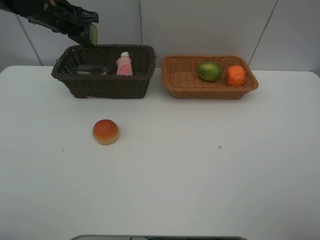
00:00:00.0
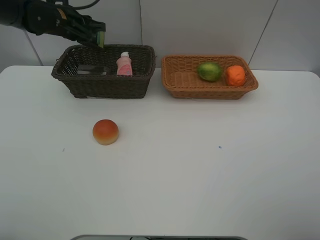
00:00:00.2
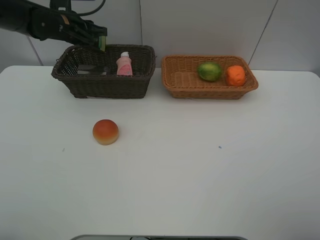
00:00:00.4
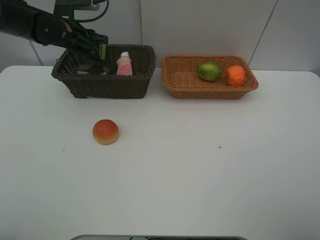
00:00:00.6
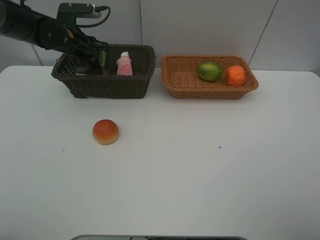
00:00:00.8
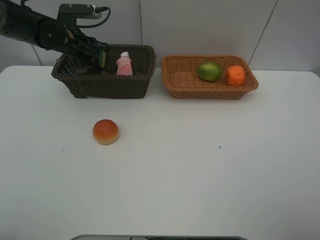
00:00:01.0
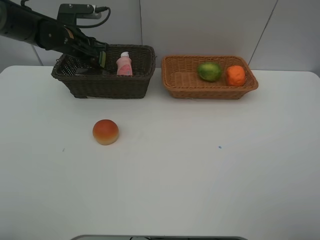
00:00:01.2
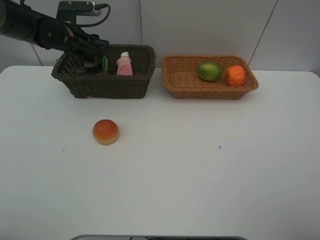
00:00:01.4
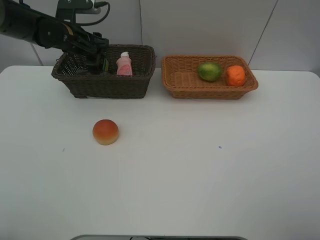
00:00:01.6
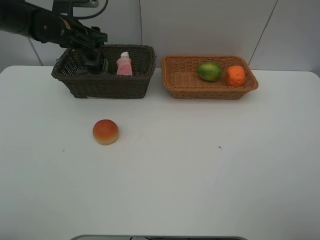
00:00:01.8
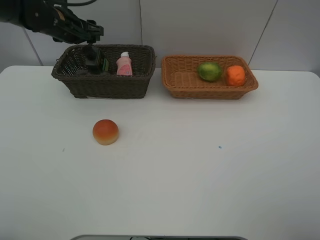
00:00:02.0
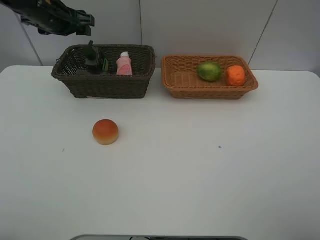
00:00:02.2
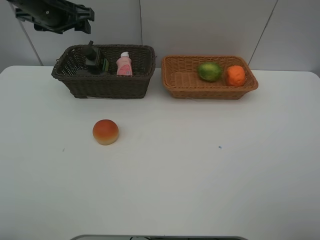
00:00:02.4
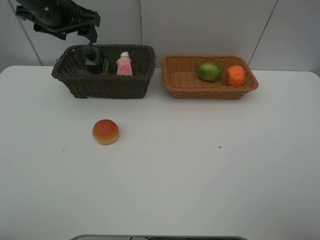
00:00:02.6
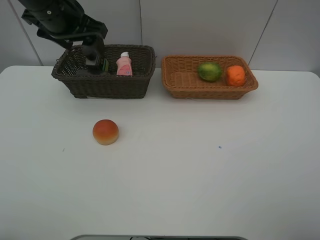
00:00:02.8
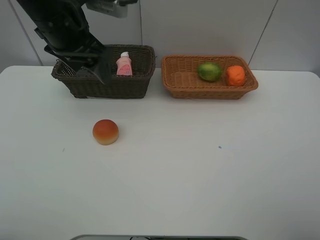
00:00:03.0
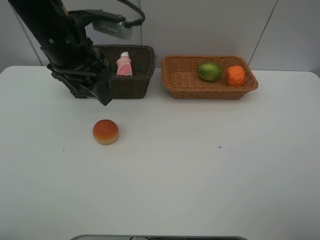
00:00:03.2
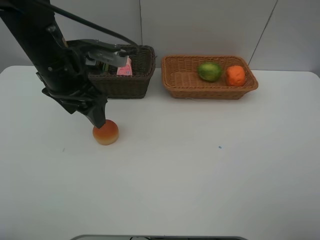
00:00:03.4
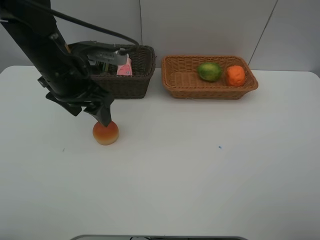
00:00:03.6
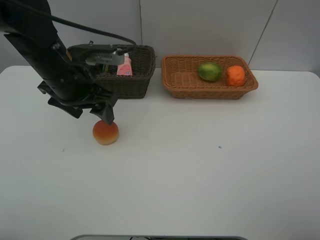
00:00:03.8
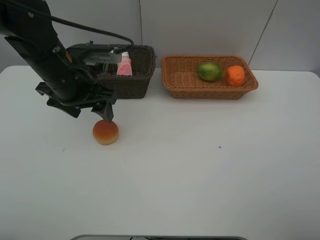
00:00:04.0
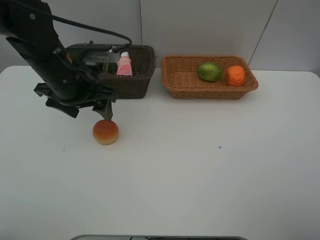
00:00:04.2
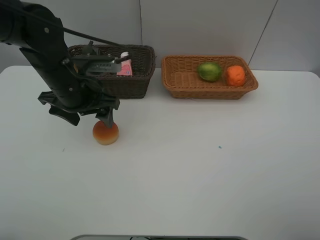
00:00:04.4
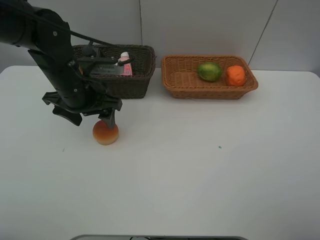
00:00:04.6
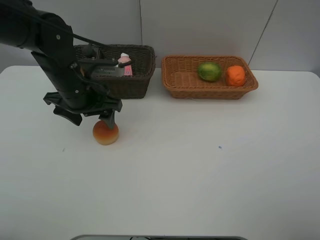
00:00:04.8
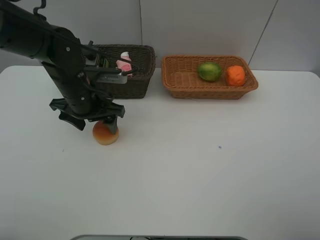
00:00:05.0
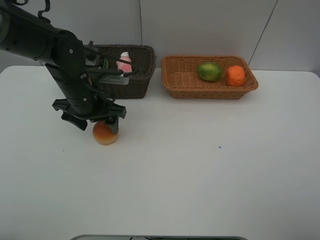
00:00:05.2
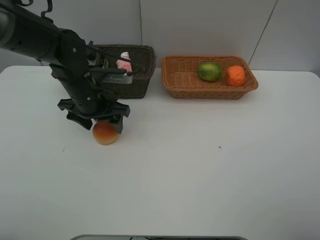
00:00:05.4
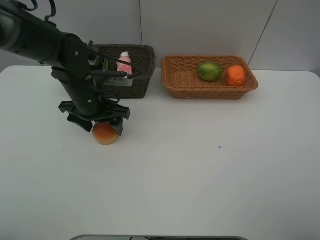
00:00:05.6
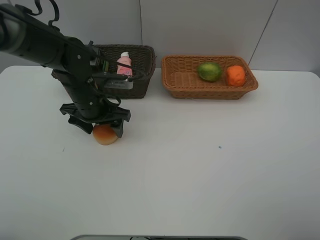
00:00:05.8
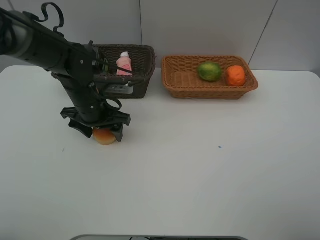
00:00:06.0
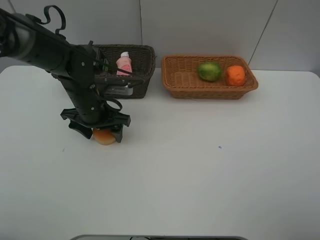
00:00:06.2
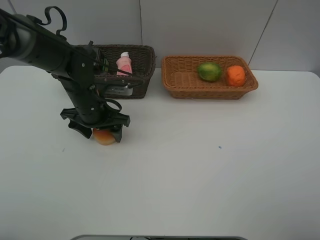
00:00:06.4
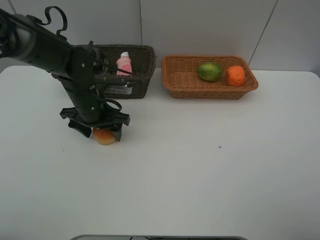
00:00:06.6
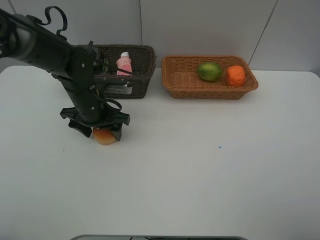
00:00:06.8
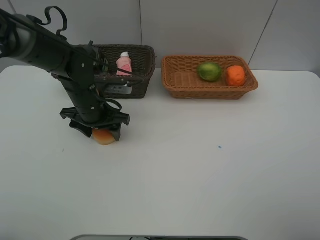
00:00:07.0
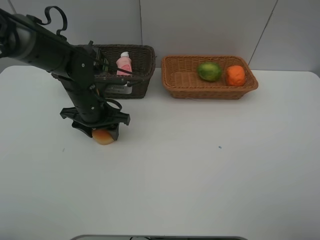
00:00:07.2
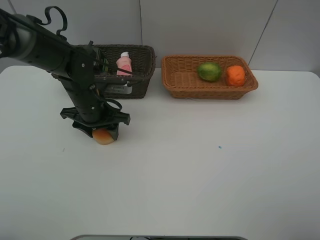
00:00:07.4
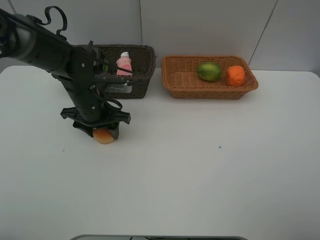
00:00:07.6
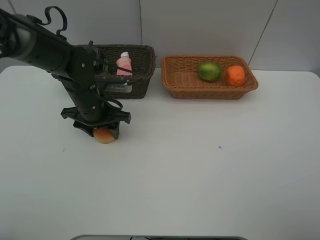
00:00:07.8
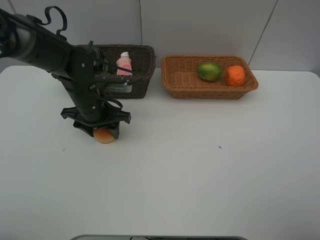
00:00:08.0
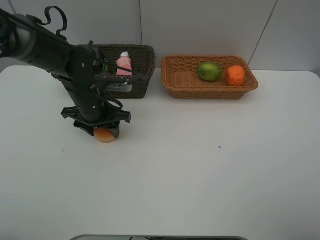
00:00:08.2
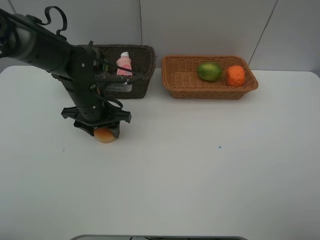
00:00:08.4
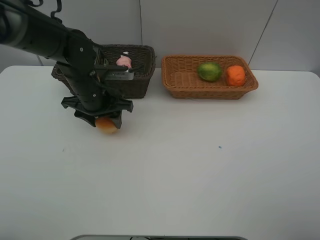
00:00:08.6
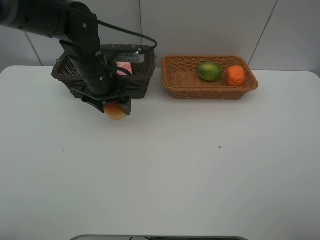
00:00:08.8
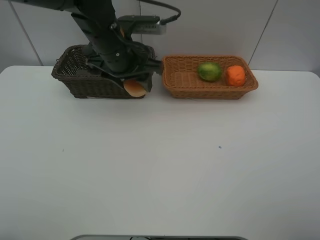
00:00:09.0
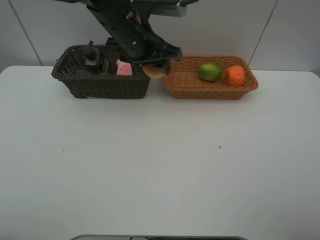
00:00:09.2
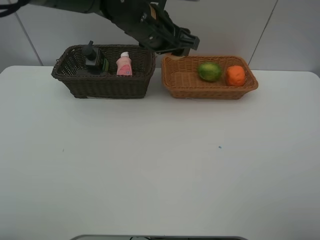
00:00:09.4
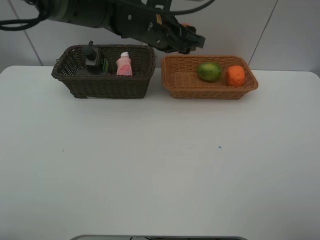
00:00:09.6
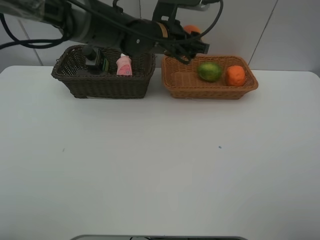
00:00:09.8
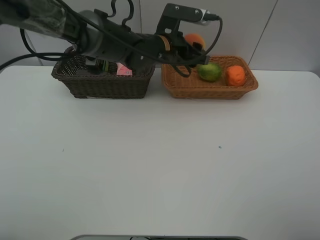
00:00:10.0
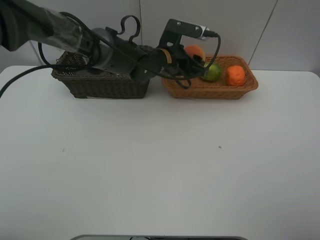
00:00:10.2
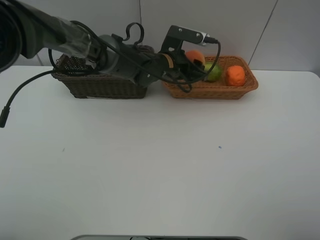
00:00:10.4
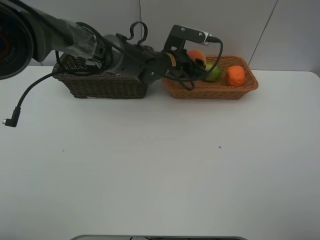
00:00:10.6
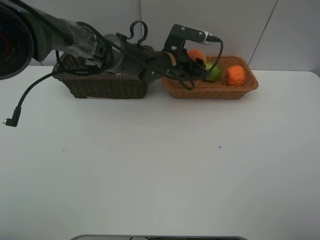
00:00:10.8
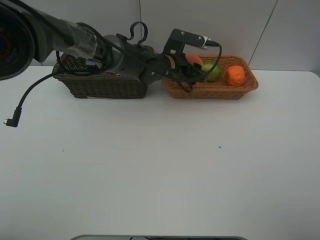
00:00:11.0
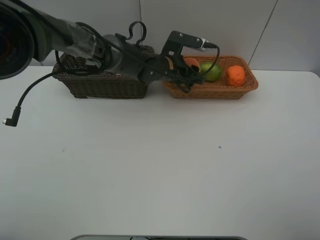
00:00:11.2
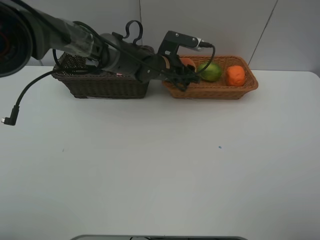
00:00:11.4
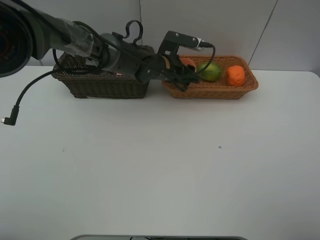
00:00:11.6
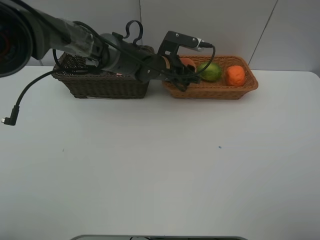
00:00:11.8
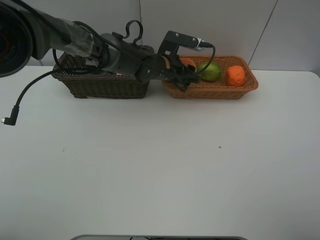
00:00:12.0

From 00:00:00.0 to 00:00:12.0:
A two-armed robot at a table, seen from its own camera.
Task of the whole recording: place multiple objects separately in different baskets.
From 00:00:00.0 to 00:00:01.6: The left gripper is displaced downward by approximately 5 cm, and opens up.
From 00:00:01.6 to 00:00:03.0: The left gripper shifts about 20 cm backward, upward and to the right.
From 00:00:03.0 to 00:00:04.4: The left gripper goes approximately 10 cm downward.
From 00:00:04.4 to 00:00:06.0: The left gripper goes some 5 cm downward.
From 00:00:06.0 to 00:00:07.6: The left gripper closes up.
From 00:00:07.6 to 00:00:09.0: The left gripper shifts some 15 cm upward and to the right.
From 00:00:09.0 to 00:00:10.4: The left gripper moves downward, to the right and forward, roughly 15 cm.
From 00:00:10.4 to 00:00:12.0: The grippers make only small movements.

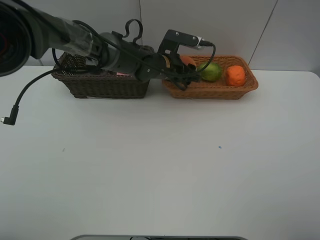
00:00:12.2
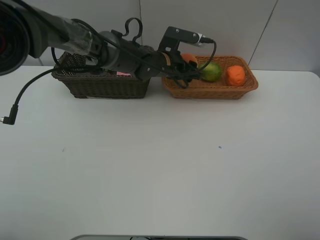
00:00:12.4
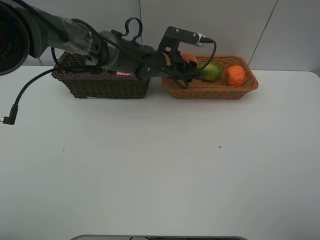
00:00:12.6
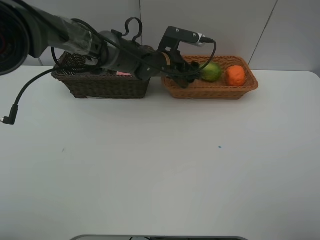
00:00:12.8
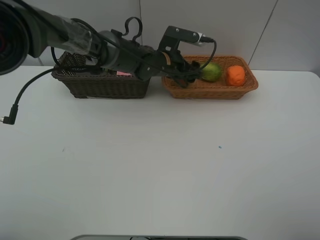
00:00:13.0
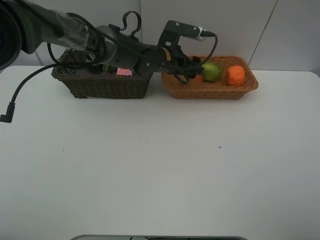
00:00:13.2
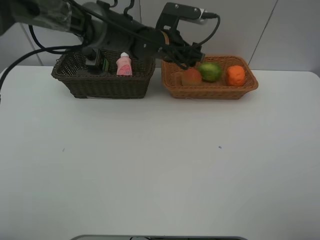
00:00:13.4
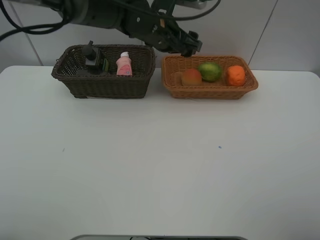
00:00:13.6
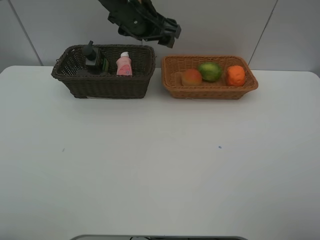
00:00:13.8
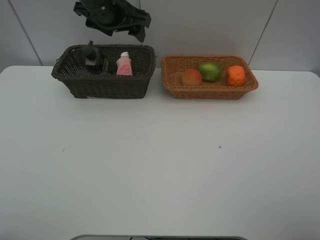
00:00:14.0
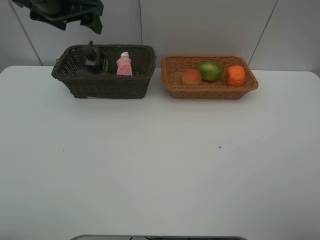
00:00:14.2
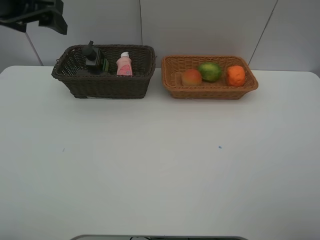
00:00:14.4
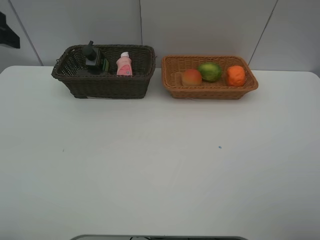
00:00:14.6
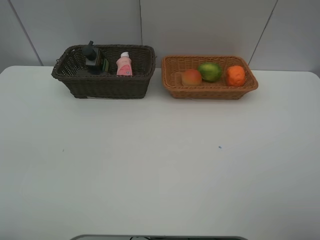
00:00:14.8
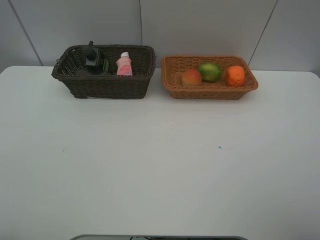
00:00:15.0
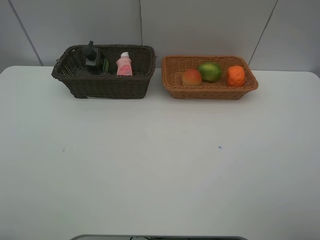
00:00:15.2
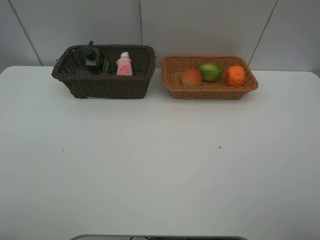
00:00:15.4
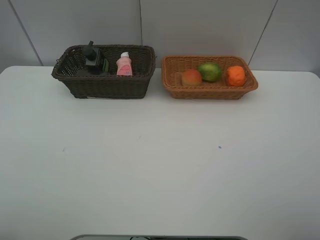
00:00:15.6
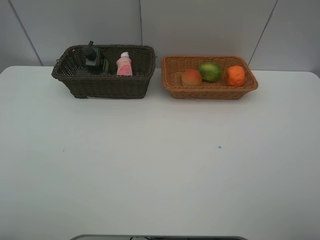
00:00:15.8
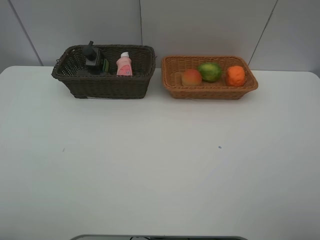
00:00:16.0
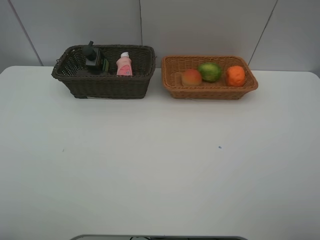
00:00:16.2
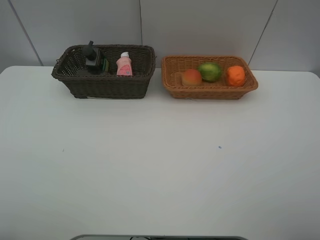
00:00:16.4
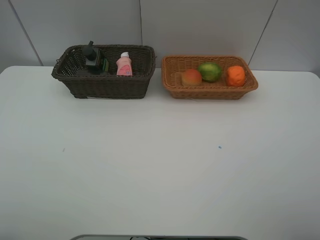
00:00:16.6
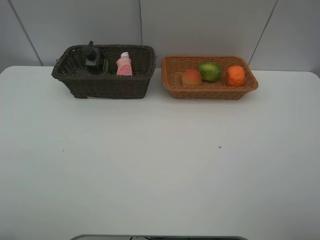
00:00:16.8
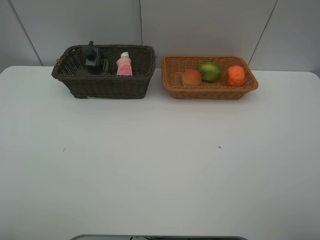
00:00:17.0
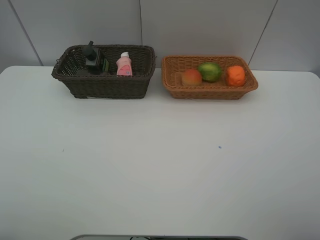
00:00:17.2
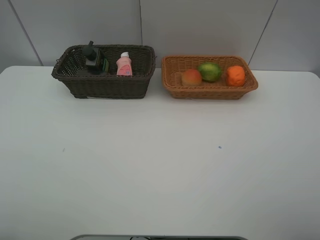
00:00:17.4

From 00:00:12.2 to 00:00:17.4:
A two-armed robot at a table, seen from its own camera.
Task of the whole recording: place multiple objects separately in different baskets.
From 00:00:12.2 to 00:00:14.0: The left gripper travels upward and to the left by roughly 20 cm, and opens.
From 00:00:14.0 to 00:00:15.6: The left gripper goes roughly 40 cm backward and to the left.
